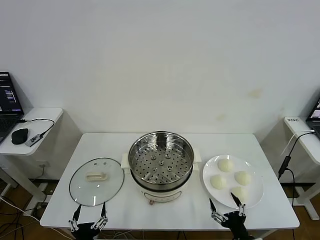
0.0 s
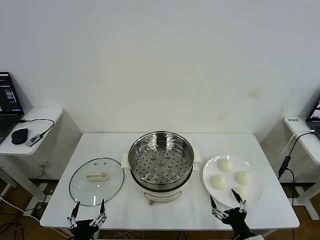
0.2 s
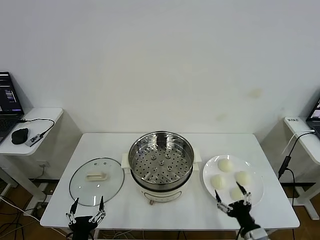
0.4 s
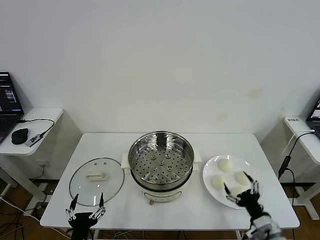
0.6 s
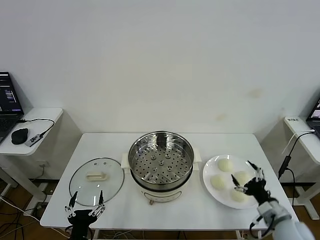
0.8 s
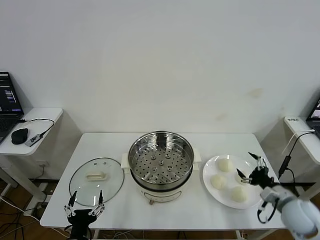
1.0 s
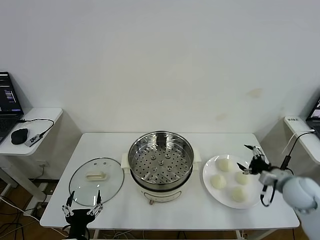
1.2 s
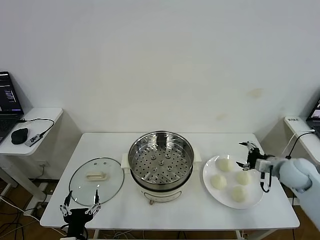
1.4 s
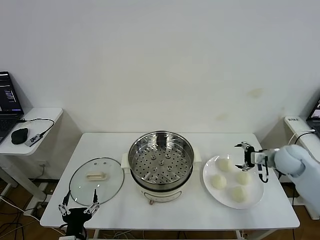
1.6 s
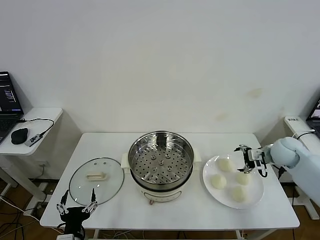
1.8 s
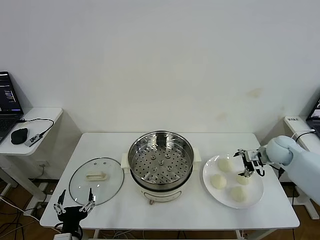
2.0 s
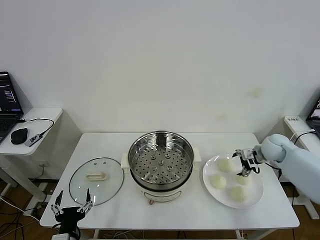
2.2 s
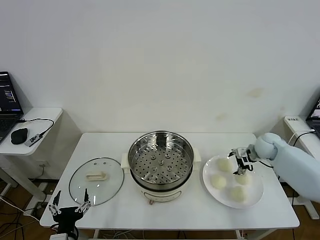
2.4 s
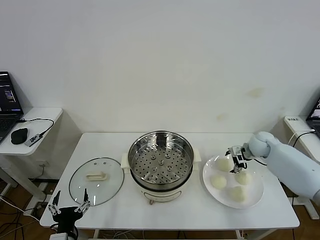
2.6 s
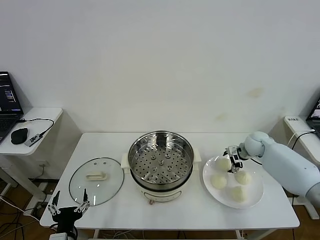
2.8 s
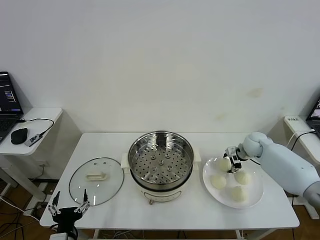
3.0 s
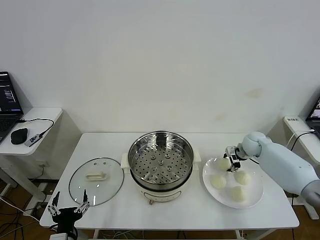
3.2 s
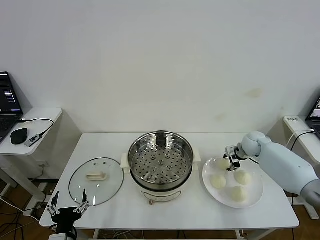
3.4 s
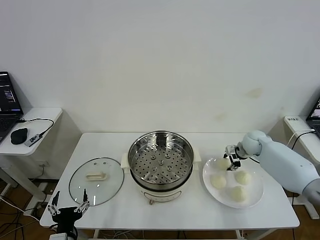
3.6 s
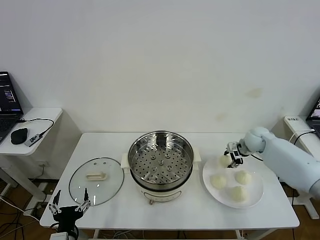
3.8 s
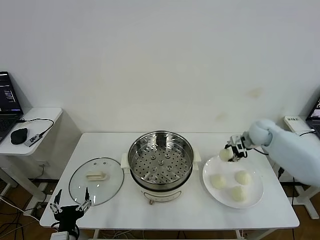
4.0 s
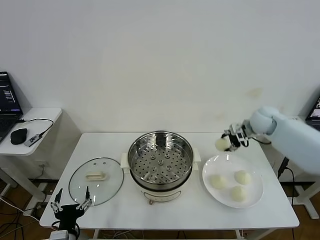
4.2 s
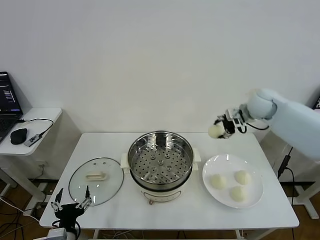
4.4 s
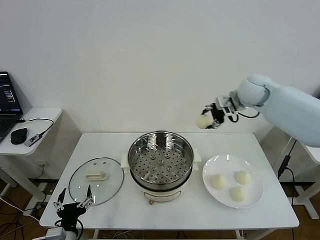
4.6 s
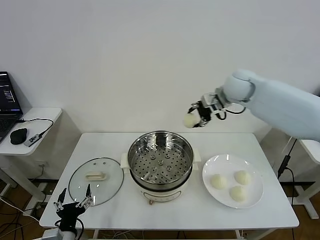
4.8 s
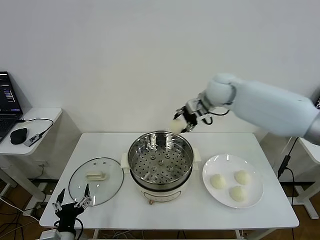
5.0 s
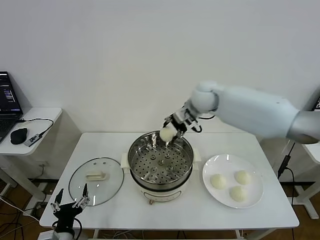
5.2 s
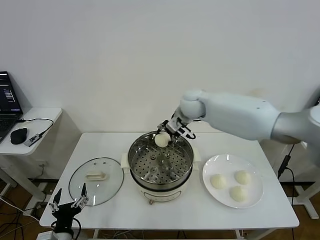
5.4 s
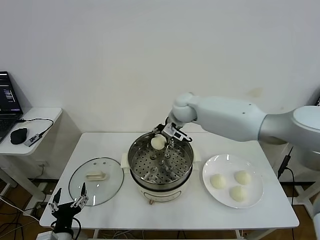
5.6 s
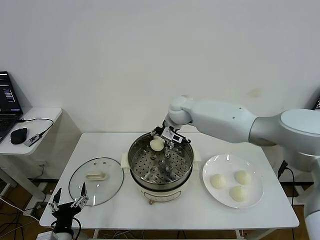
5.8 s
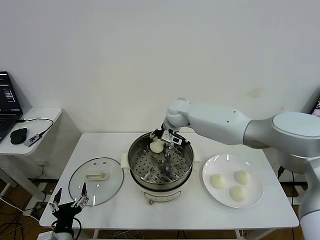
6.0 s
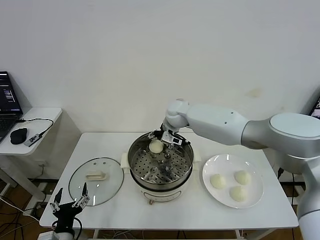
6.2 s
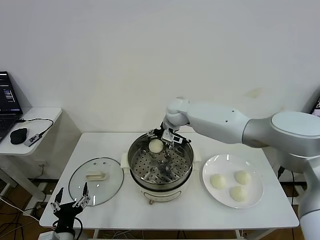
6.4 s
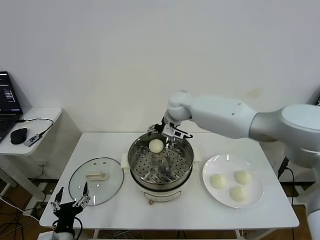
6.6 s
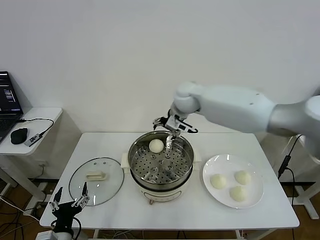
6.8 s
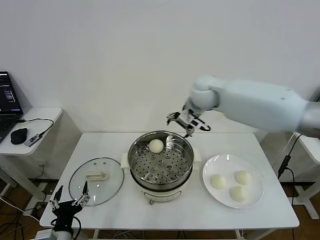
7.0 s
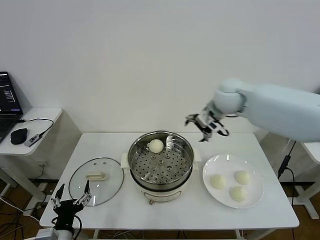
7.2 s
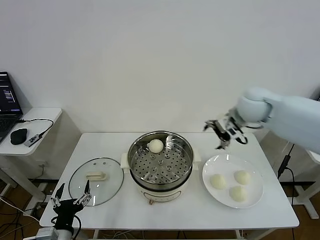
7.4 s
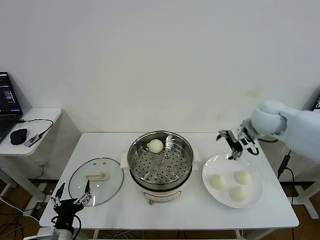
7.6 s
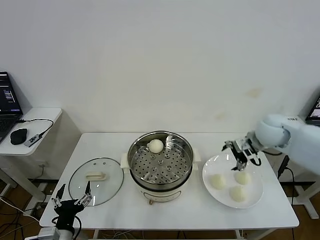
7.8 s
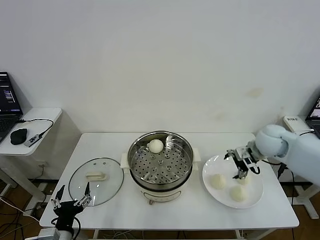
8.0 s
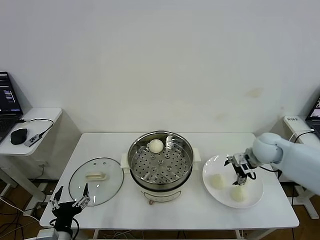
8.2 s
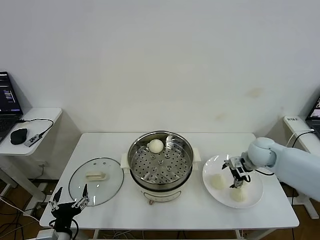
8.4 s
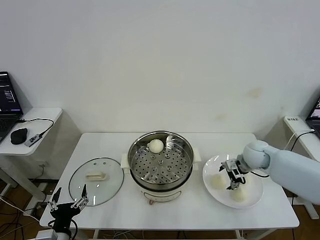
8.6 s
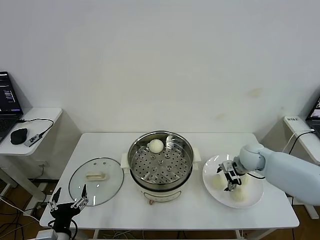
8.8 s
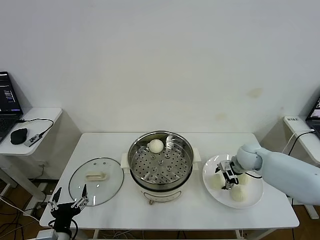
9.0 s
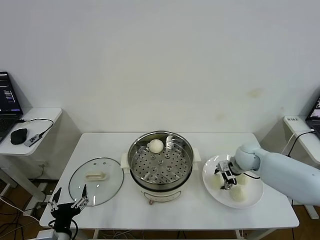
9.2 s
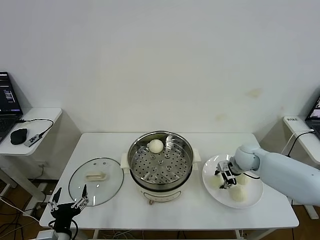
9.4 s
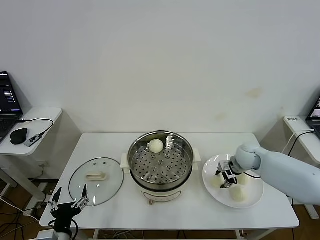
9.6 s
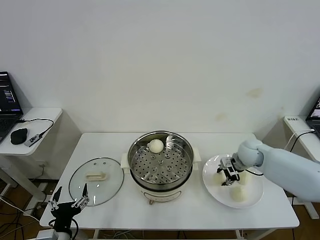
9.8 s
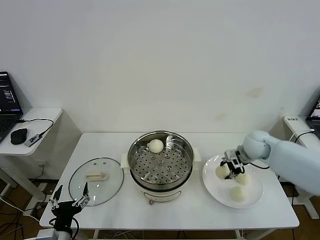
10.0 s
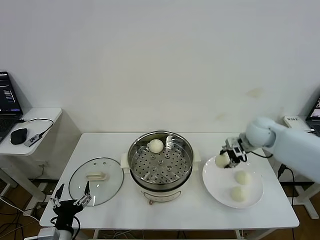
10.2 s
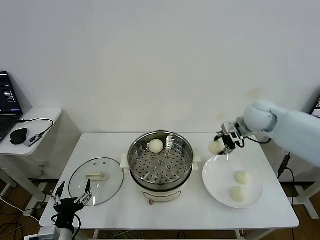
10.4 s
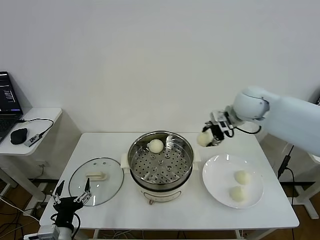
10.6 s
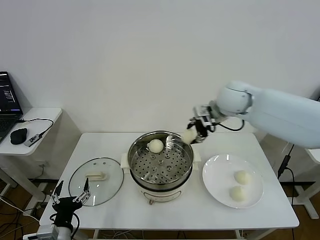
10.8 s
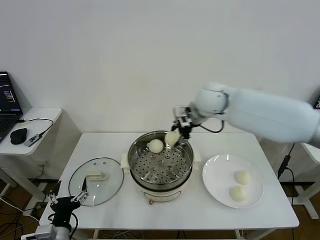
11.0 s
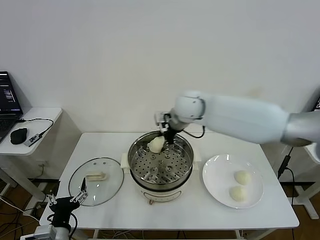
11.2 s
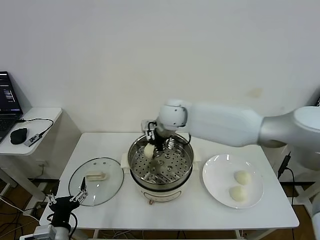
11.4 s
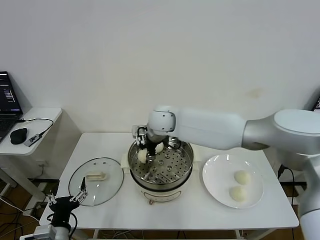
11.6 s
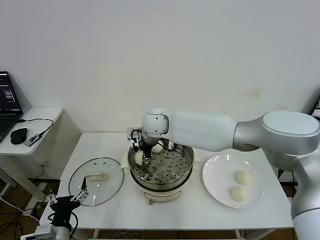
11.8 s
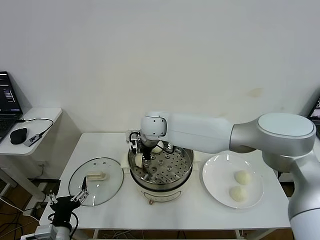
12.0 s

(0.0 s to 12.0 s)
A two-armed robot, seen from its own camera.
Task of the whole recording: take steamed baozi put them in steamer then cover it.
Step, 0.0 s - 3.4 s: Grasp the baozi in the plate with right gripper.
Step, 3.6 s - 6.4 s: Place the baozi on the steamer with right gripper.
Step, 6.6 s - 9.4 s: Grasp the baozi in the plate with right gripper.
1.6 s - 3.0 s: The right gripper travels forward and downward by roughly 10 cm, and closes up.
3.0 s - 4.4 s: The right gripper shifts approximately 25 cm upward, and closes its fingers.
4.4 s - 6.0 s: The right gripper is displaced to the left and downward by some 25 cm.
6.0 s - 7.6 s: The right gripper moves to the right and backward, approximately 30 cm, and opens.
7.6 s - 9.0 s: The right gripper travels downward by about 15 cm.
9.0 s - 10.4 s: The right gripper shifts about 20 cm upward, and closes.
10.4 s - 12.0 s: The right gripper goes about 30 cm to the left.

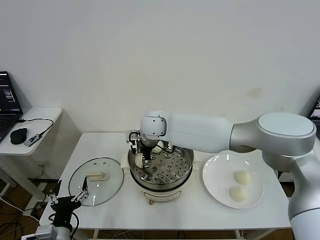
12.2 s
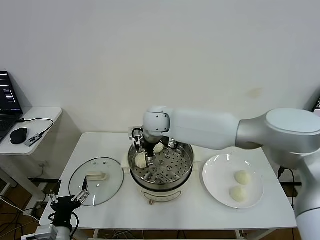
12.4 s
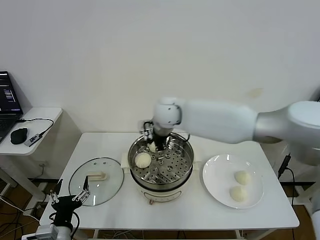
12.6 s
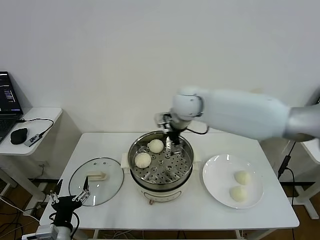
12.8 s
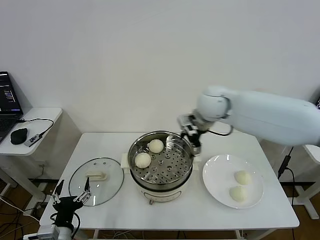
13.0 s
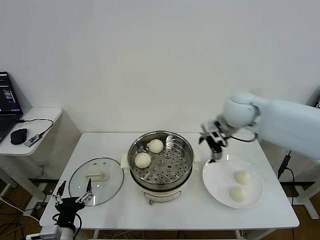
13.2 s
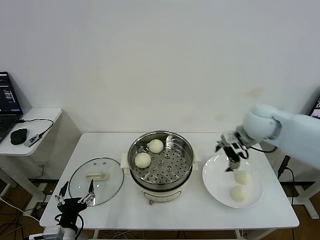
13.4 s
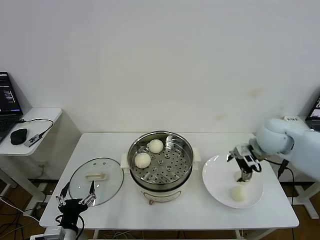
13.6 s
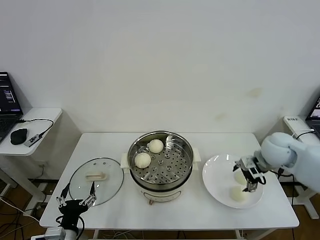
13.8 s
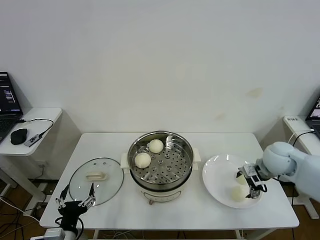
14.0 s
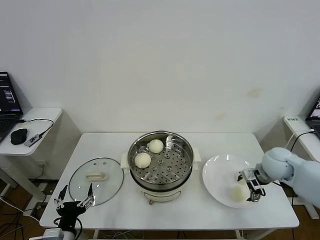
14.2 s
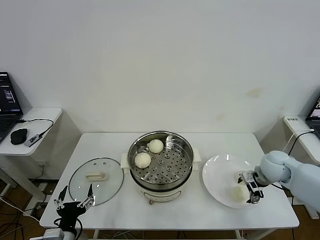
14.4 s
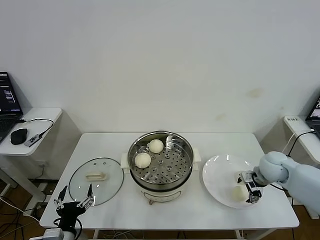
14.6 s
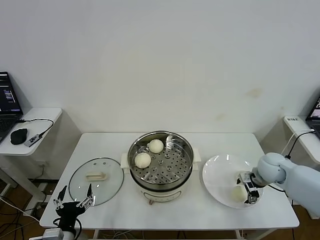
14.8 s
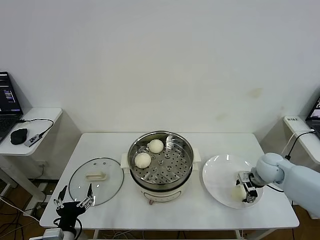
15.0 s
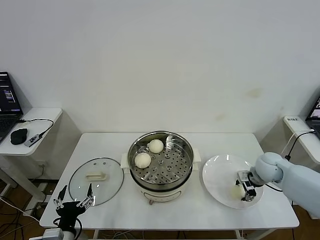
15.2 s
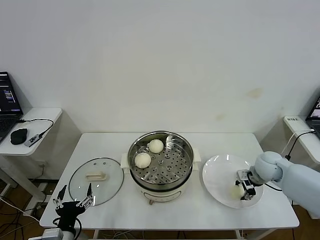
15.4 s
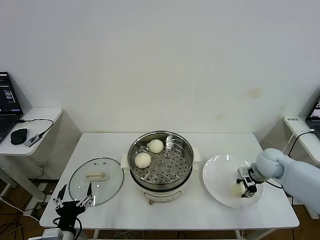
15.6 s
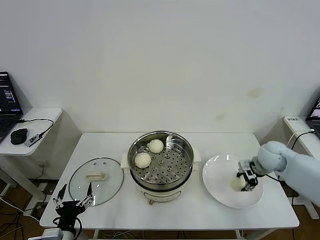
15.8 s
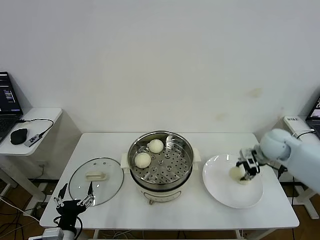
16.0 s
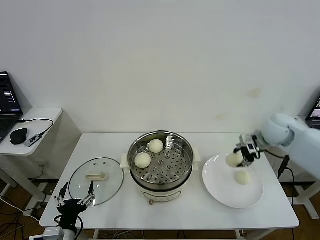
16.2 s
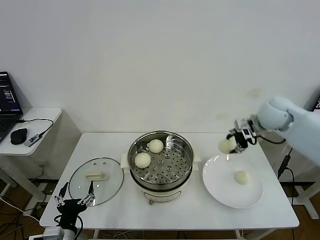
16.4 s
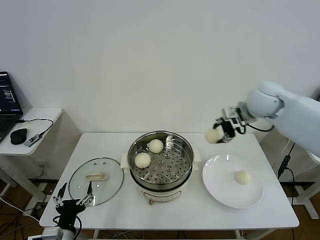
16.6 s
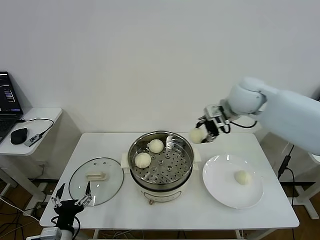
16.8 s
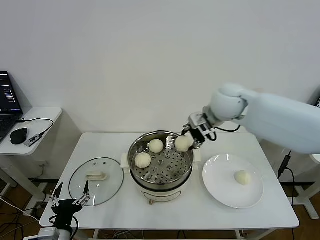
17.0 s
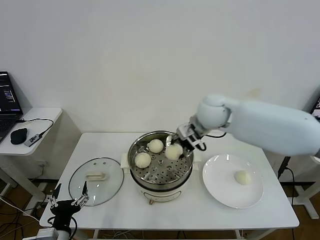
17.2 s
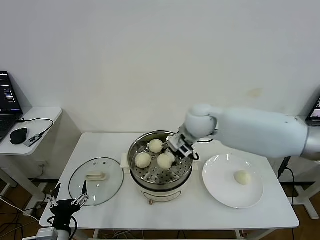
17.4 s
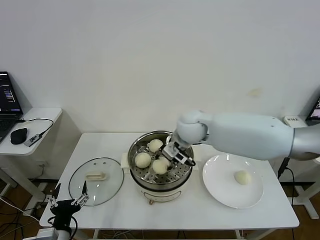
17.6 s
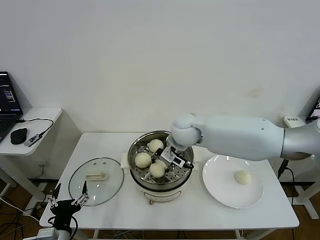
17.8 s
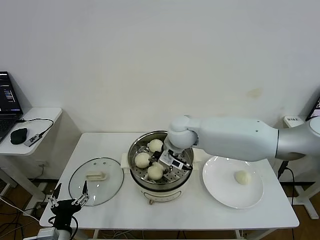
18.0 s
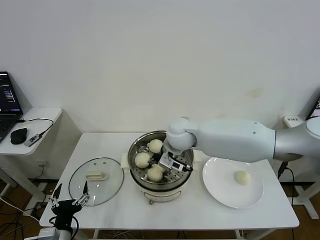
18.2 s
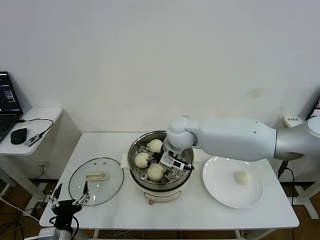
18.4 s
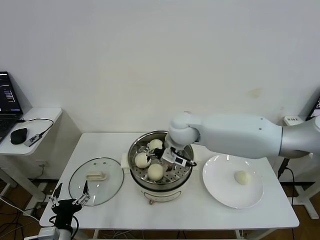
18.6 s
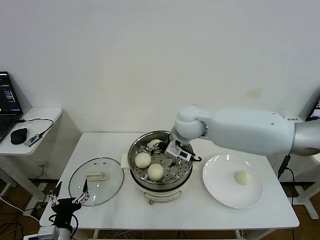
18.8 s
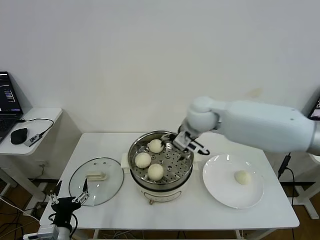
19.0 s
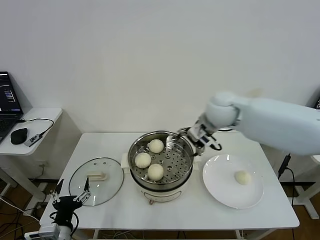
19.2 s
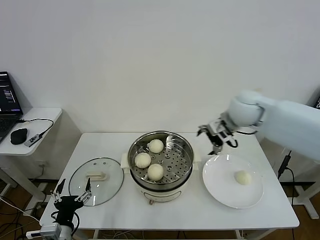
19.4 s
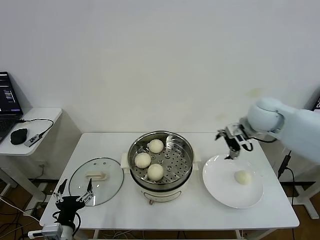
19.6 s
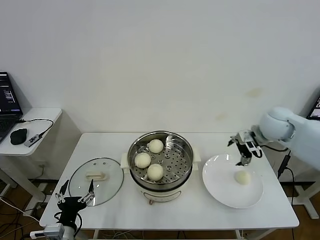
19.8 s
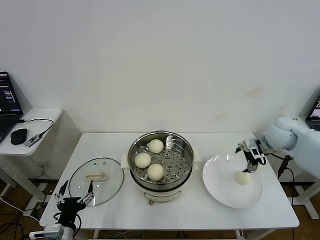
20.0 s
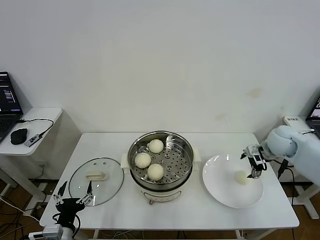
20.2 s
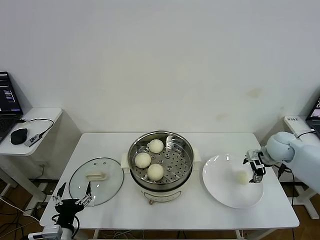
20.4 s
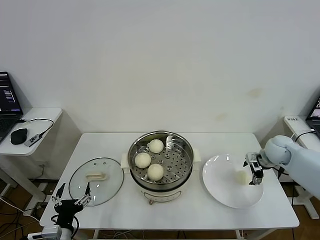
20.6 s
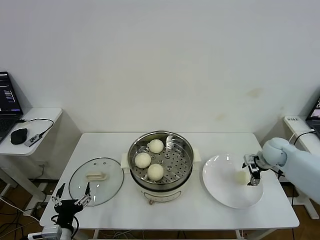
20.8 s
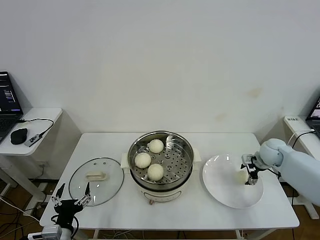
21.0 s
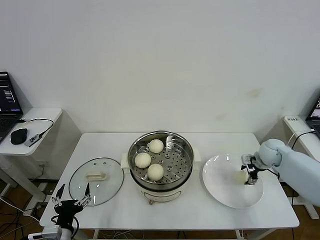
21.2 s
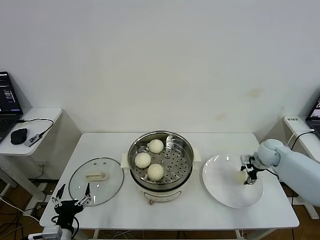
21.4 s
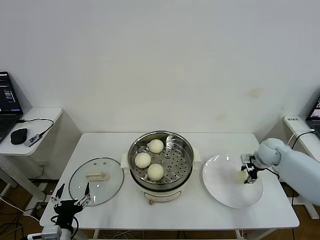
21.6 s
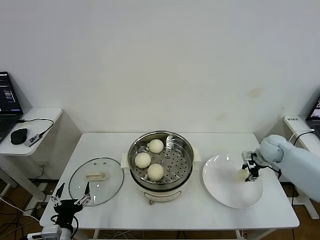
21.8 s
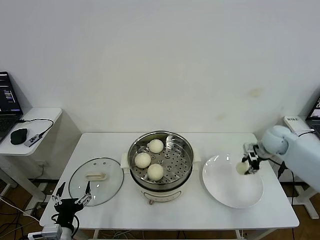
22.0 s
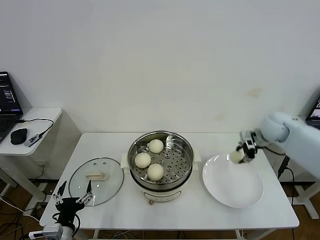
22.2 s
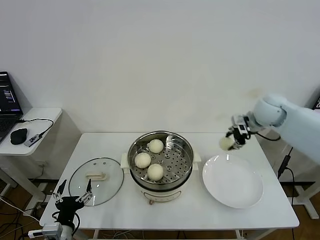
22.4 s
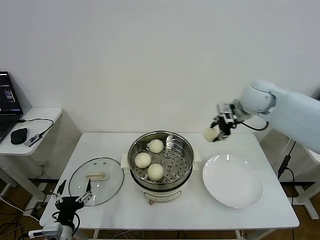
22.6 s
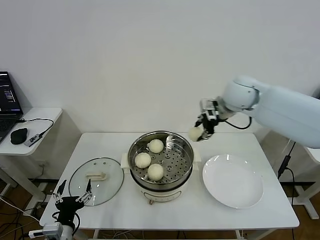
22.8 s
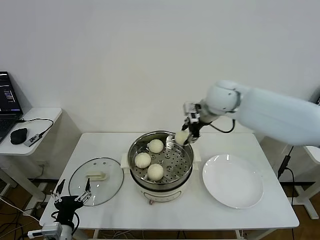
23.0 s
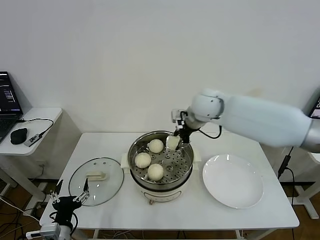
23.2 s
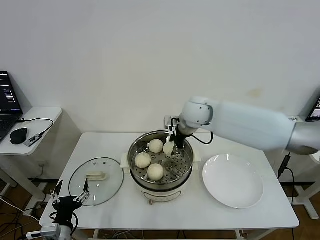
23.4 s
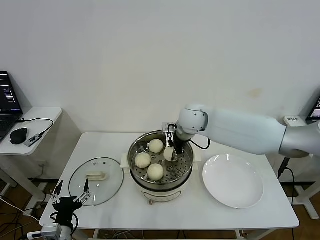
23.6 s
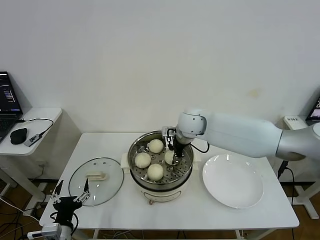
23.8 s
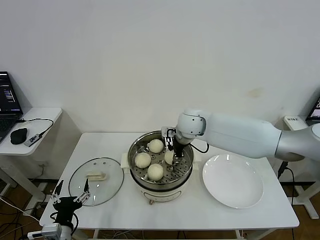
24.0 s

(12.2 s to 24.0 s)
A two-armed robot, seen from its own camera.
Task of the whole recording: take steamed baozi put them in steamer then cover it.
Step, 12.4 s - 15.4 s: Grasp the baozi in the plate with right gripper.
Step, 15.6 s - 18.4 s: Place the baozi on the steamer with right gripper.
Step, 18.6 s - 21.8 s: Grasp the baozi in the plate with right gripper.
12.2 s - 13.6 s: The right gripper is displaced to the right by about 35 cm.
13.6 s - 15.2 s: The right gripper goes roughly 15 cm downward, and closes.
15.2 s - 16.6 s: The right gripper heads upward and to the left, covering roughly 25 cm.
16.6 s - 18.2 s: The right gripper is displaced to the left and downward by roughly 25 cm.
18.2 s - 19.6 s: The right gripper is displaced to the right by roughly 25 cm, and opens.
19.6 s - 21.0 s: The right gripper is displaced downward and to the right by roughly 20 cm.
21.0 s - 22.6 s: The right gripper heads upward and to the left, covering roughly 25 cm, and closes its fingers.
22.6 s - 24.0 s: The right gripper travels to the left and downward by roughly 20 cm.
